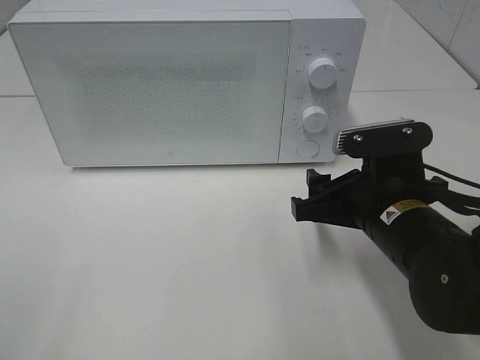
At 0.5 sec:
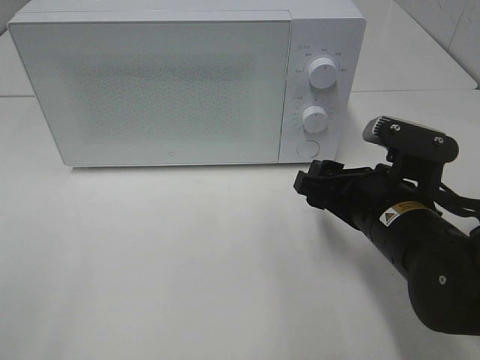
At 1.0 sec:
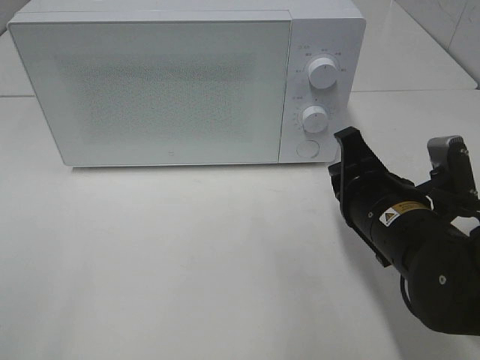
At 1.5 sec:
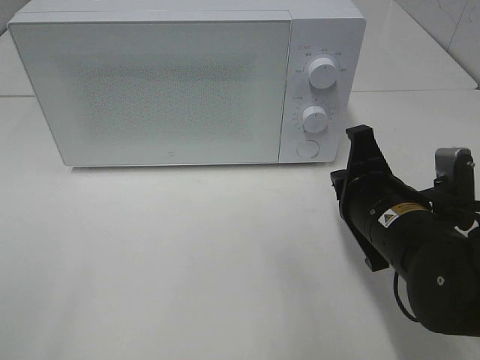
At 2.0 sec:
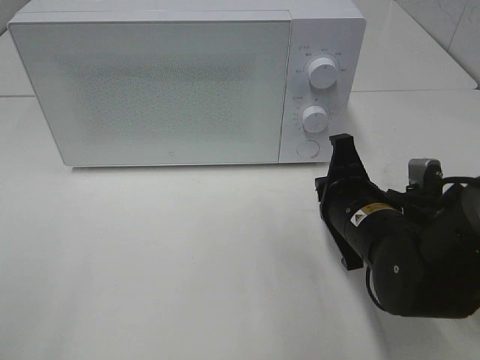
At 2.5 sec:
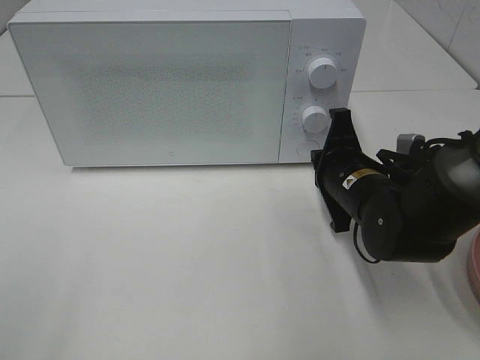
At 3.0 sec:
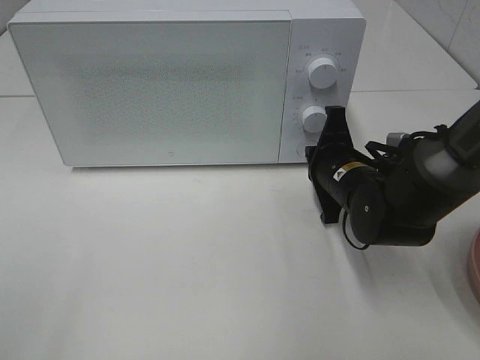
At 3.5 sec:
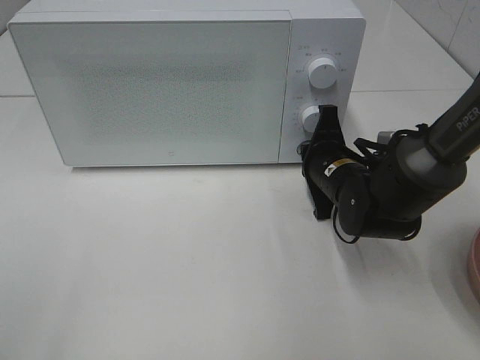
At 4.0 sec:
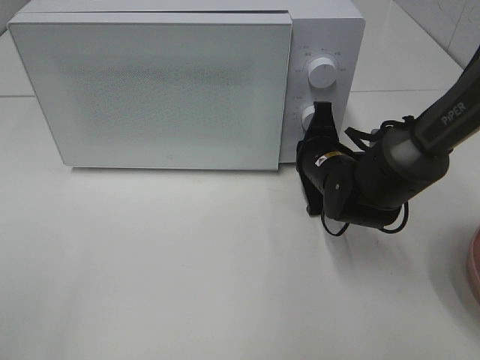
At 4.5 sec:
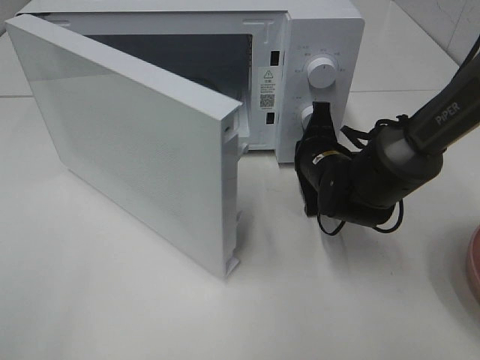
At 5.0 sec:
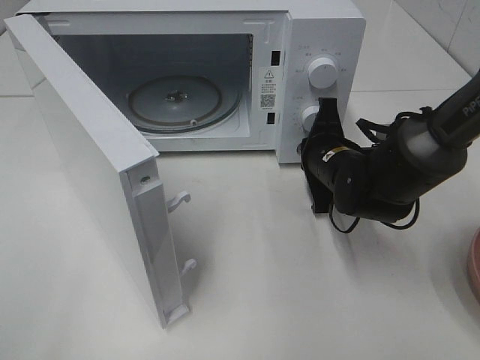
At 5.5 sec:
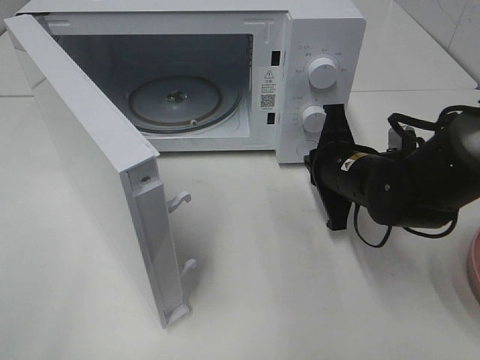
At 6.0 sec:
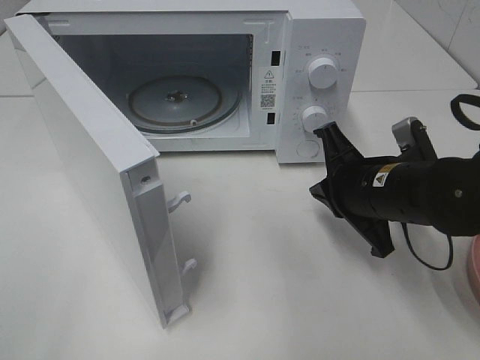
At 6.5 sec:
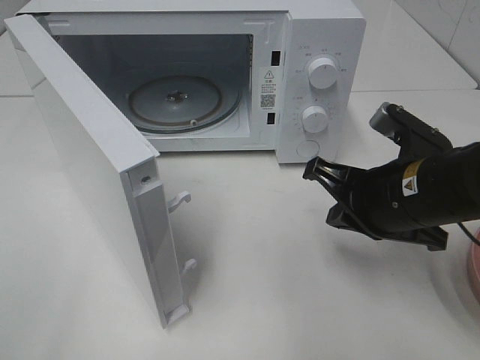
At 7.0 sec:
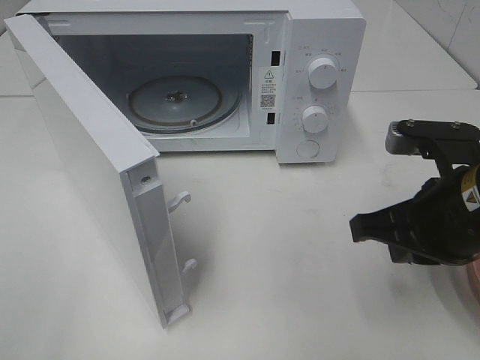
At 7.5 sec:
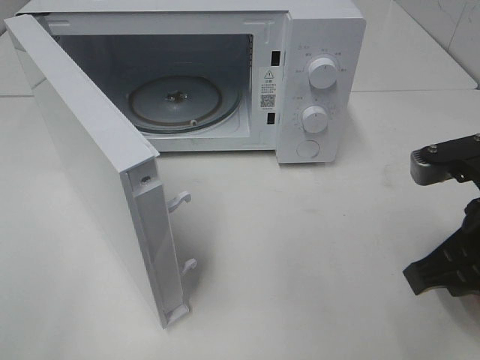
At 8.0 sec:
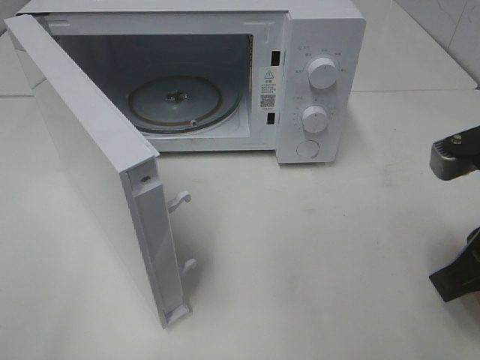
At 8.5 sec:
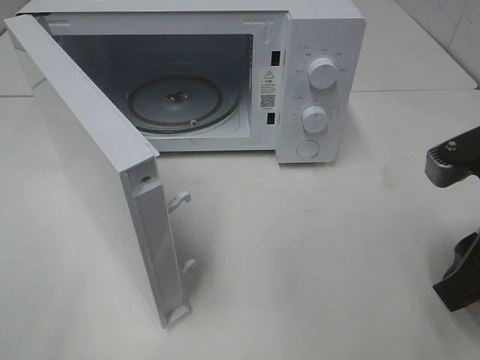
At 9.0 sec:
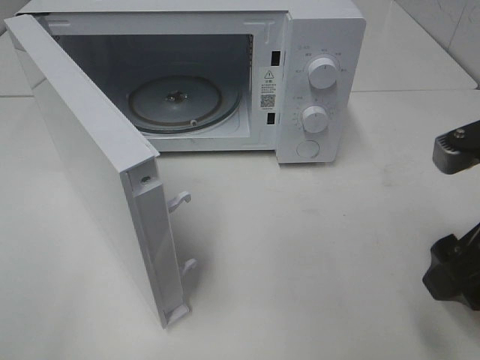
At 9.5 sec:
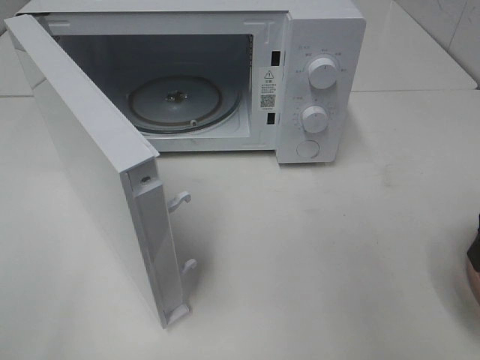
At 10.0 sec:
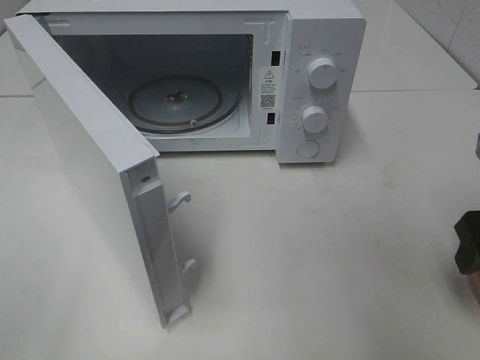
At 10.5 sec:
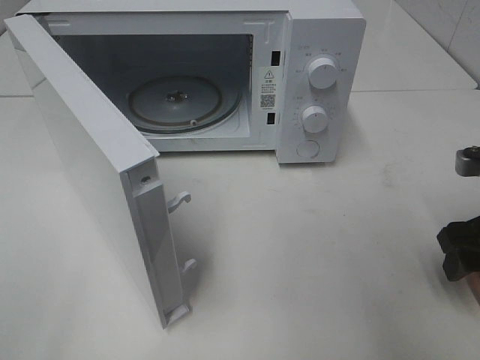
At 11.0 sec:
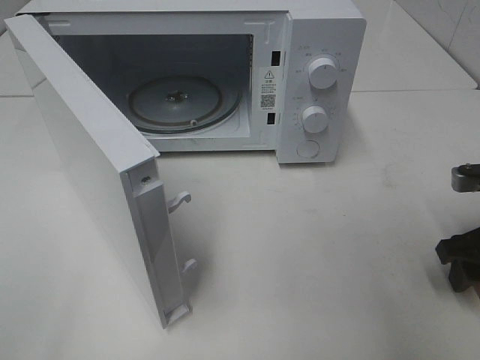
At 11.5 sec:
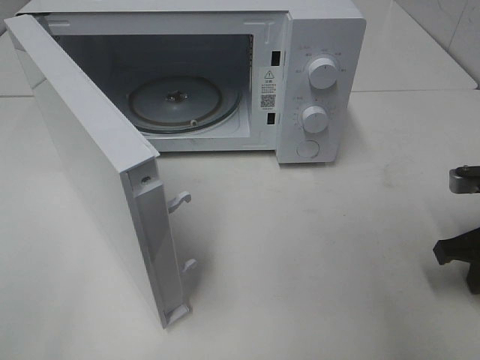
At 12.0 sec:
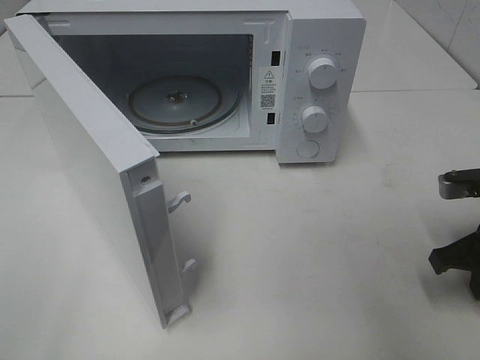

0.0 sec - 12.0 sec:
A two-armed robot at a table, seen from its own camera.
Task of the whole recording: Heat the burger.
Step, 0.0 sec - 5.0 sec: Right hand: press the switch.
Step, 5.5 sec - 11.5 sec: Right hand: grab the plate with the hamburger.
0.0 sec - 2.0 sec: The right gripper closes.
2.0 sec - 4.0 sec: The right gripper heads forward, covering about 10 cm.
4.0 sec - 6.0 sec: The right gripper goes approximately 10 cm backward and upward.
6.0 sec - 8.0 sec: The right gripper goes approximately 15 cm backward, upward and to the right.
8.0 sec - 10.0 sec: The right gripper shifts roughly 10 cm to the right and forward, and opens up.
10.0 sec - 12.0 sec: The right gripper goes some 5 cm downward, and closes.

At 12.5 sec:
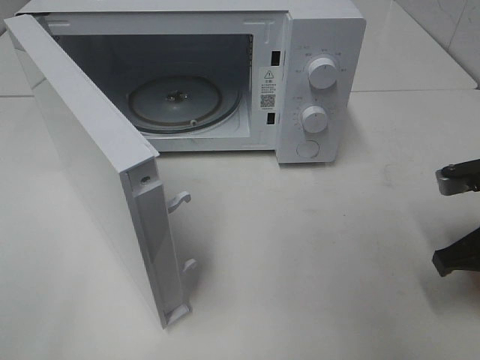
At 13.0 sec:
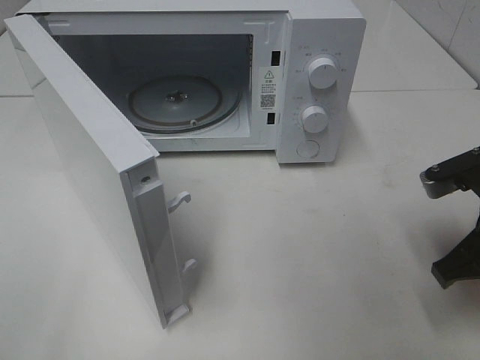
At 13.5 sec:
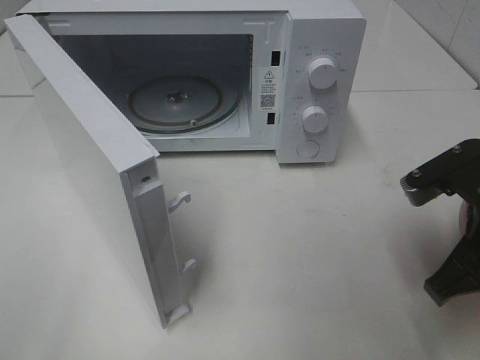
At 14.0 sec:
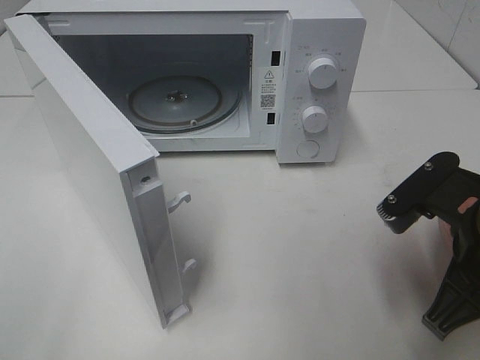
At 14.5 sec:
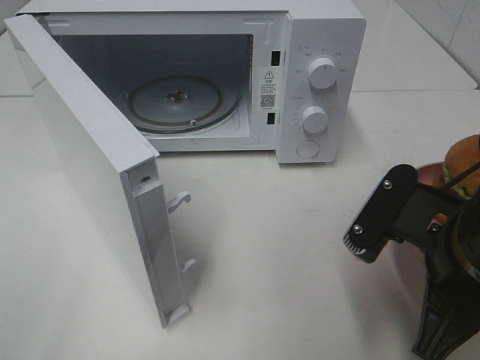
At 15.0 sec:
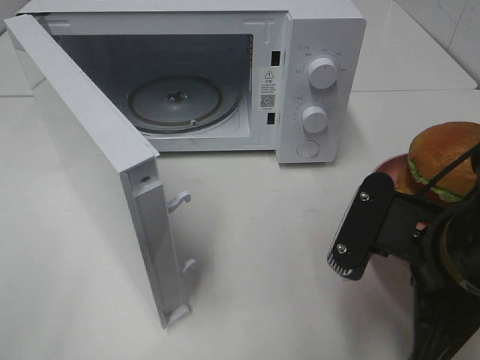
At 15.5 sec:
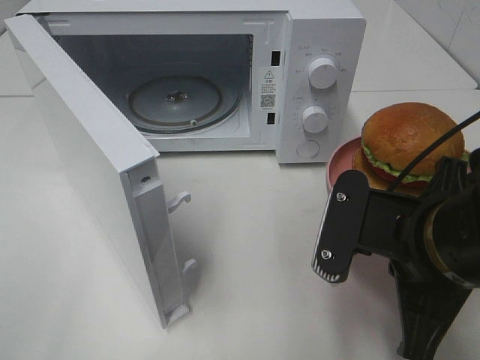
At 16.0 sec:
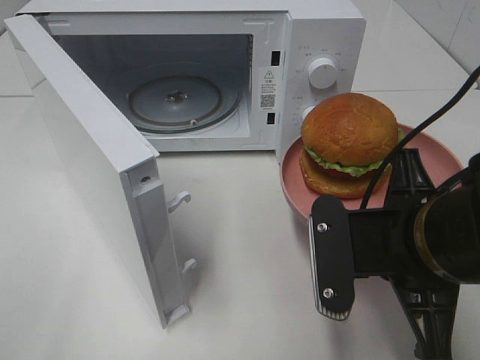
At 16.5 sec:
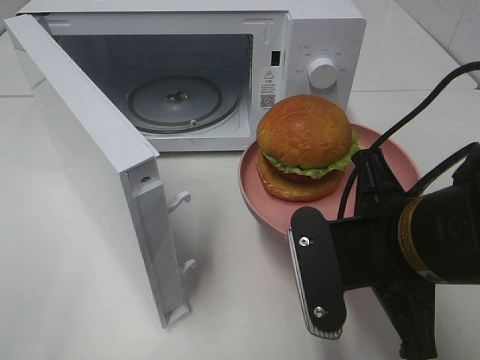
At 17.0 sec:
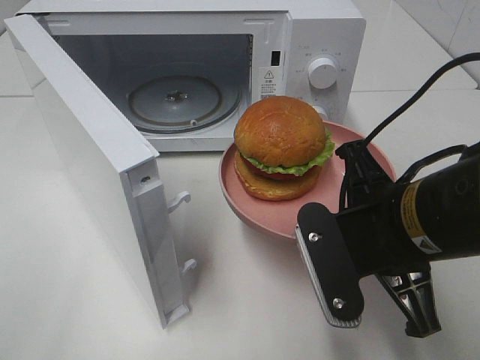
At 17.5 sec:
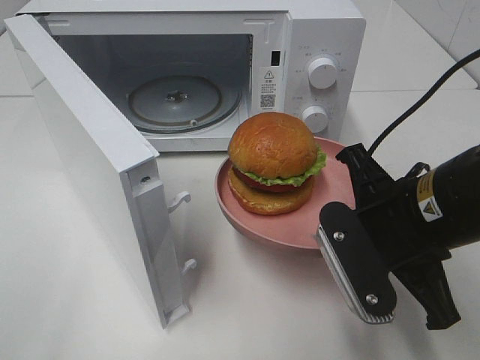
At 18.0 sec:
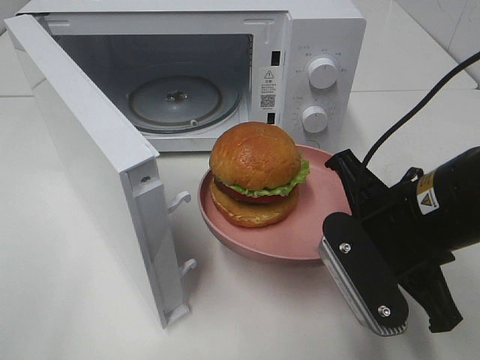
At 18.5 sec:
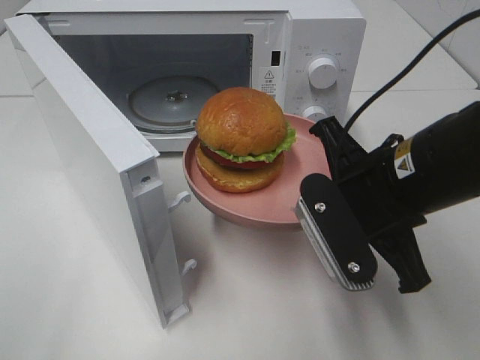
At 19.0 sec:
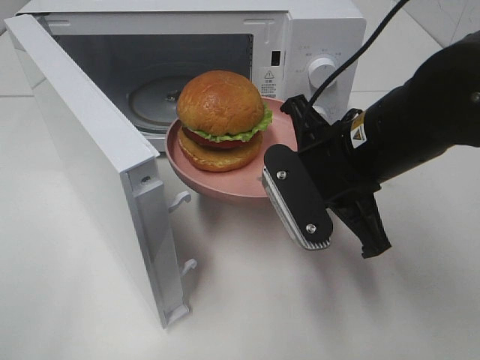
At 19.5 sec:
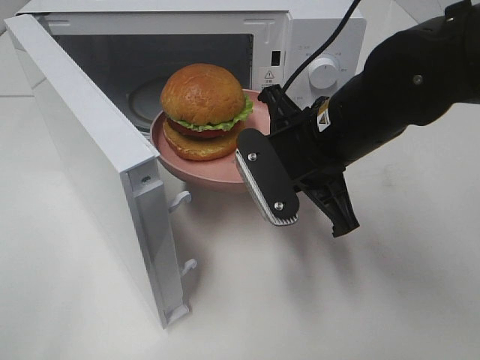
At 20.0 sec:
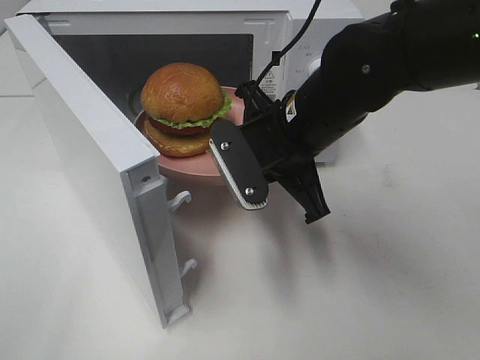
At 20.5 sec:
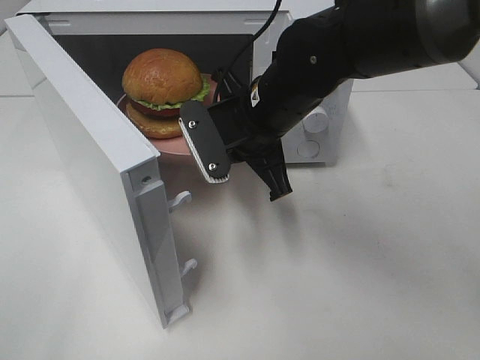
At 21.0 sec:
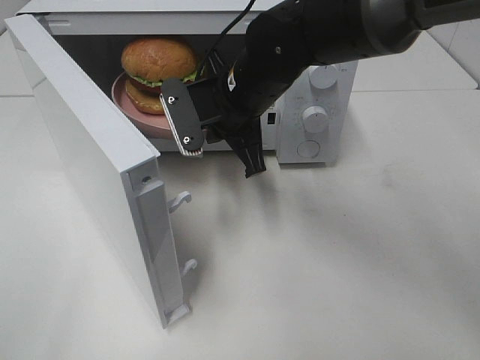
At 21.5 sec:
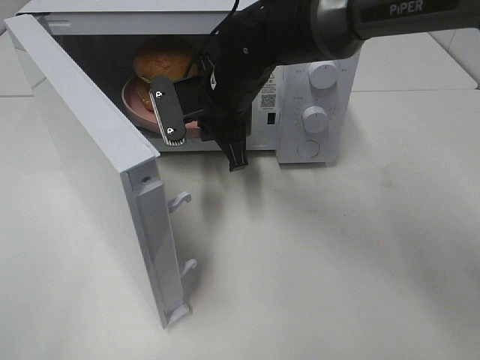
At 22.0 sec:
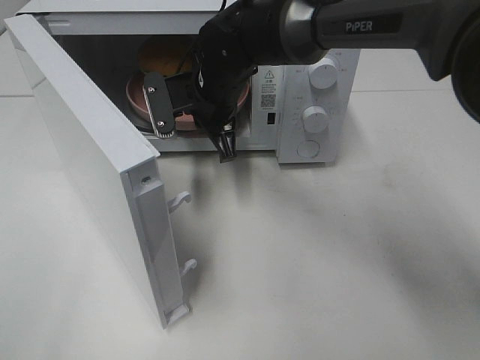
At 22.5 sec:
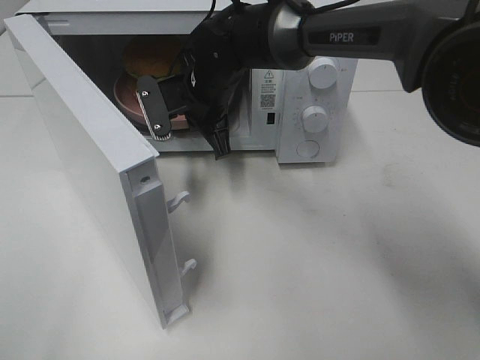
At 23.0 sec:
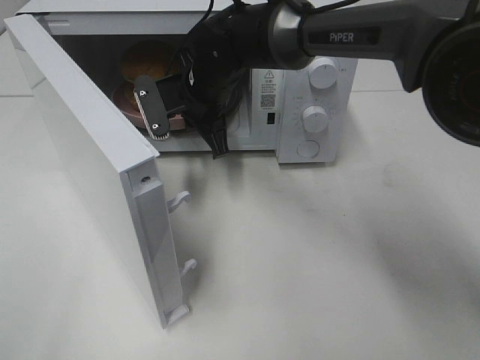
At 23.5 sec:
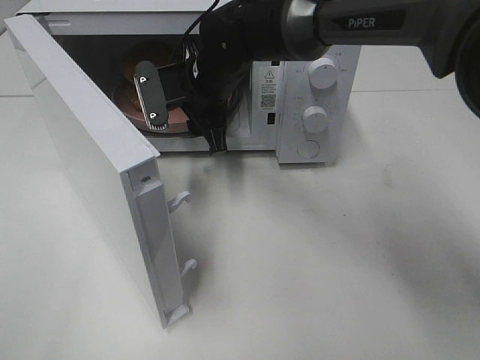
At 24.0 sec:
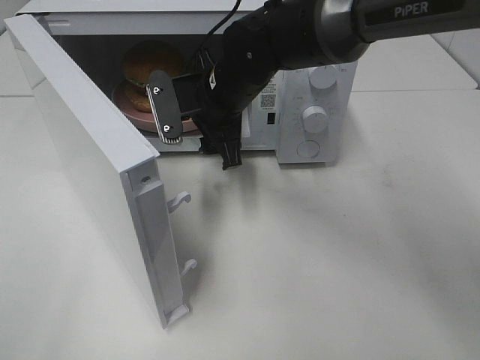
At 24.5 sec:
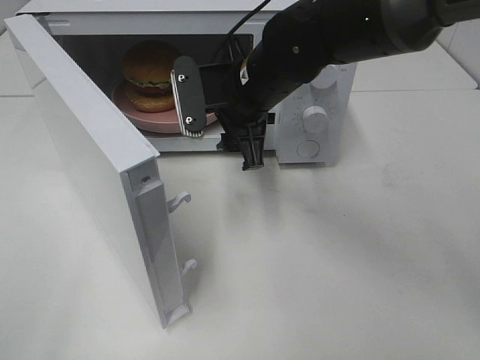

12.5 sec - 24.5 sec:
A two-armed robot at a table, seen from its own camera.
Task of the whole recording: Heat the burger.
Step, 12.5 sec - 23.0 sec: Right hand: place the plate in the microwave.
12.5 sec - 14.5 sec: The right gripper is displaced to the left and backward by some 15 cm.
16.5 sec - 18.5 sec: The right gripper heads forward, covering some 5 cm.
18.5 sec - 20.5 sec: The right gripper goes approximately 15 cm forward and to the left.
20.5 sec - 22.5 sec: The right gripper moves forward and to the left, about 10 cm.
22.5 sec - 24.5 sec: The right gripper is displaced backward and to the right by some 10 cm, and opens its fingers.

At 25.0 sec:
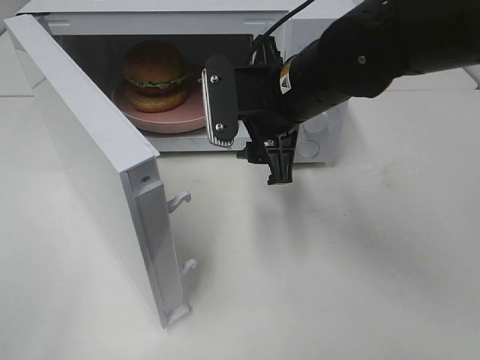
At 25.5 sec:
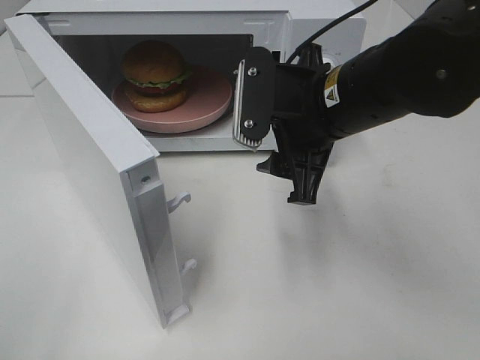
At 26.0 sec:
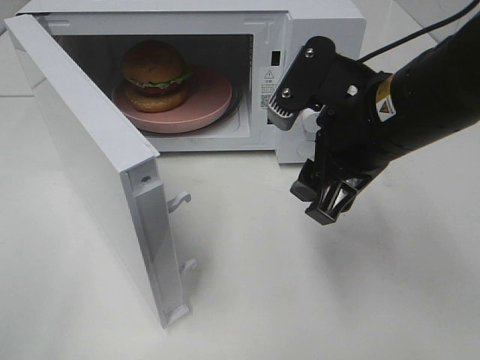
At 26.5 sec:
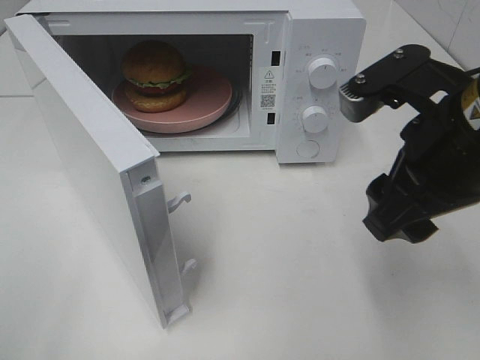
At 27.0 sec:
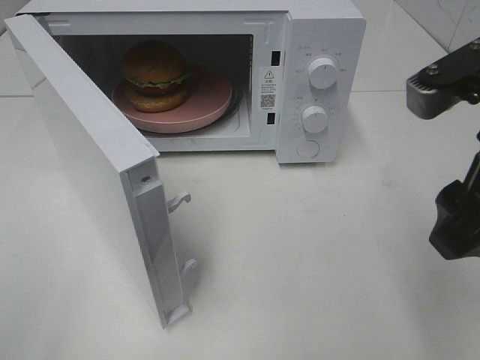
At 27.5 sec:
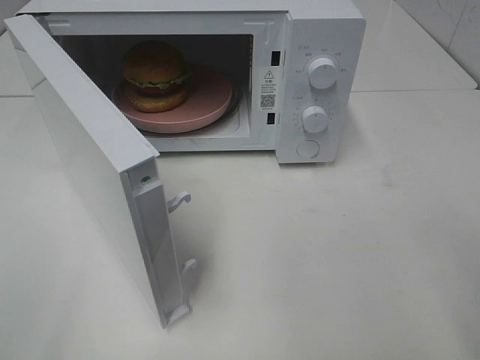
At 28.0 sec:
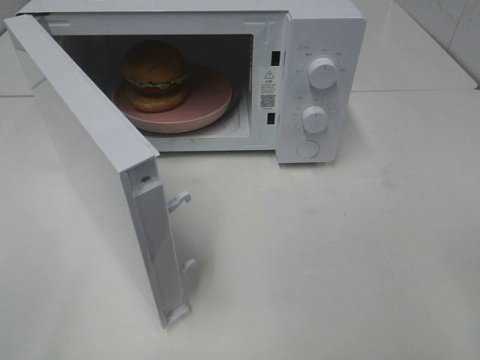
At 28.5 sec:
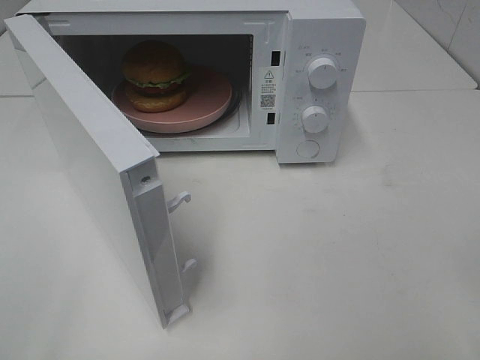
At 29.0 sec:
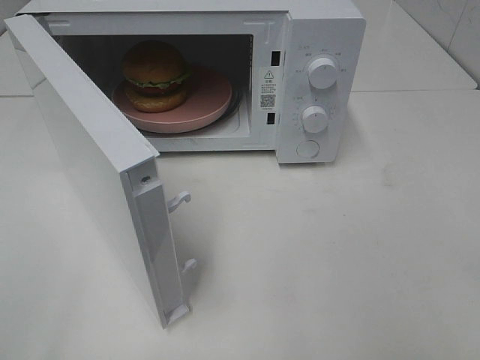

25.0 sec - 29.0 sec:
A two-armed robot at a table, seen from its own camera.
Task of the whole recording: Heat the burger.
25.0 sec - 27.0 sec: The right gripper is displaced backward, to the right and upward by some 20 cm.
27.0 sec - 29.0 sec: The right gripper moves backward and to the right, approximately 15 cm.
